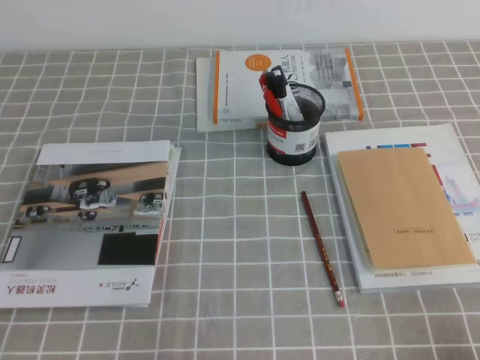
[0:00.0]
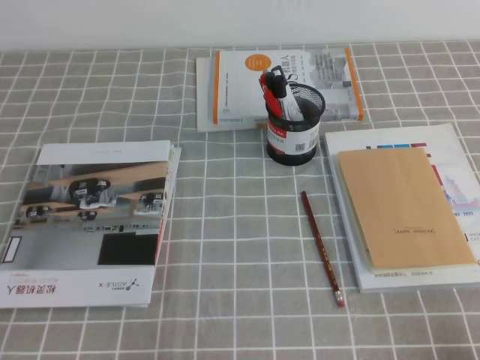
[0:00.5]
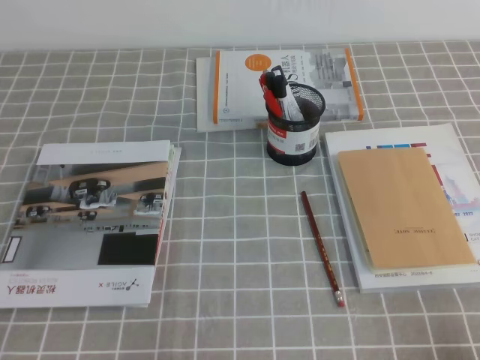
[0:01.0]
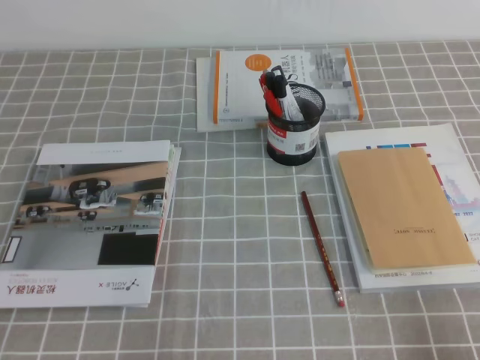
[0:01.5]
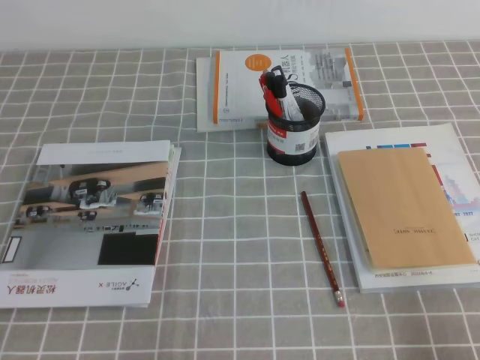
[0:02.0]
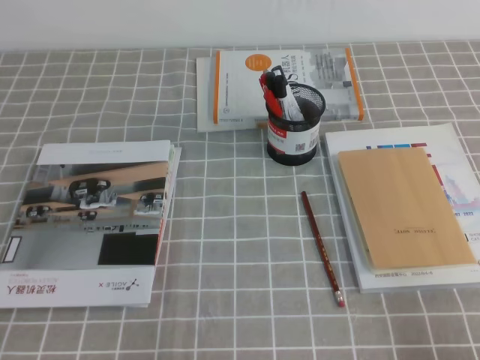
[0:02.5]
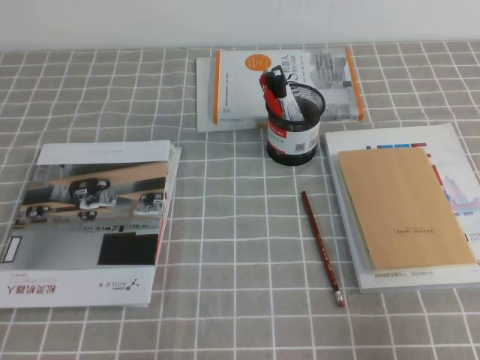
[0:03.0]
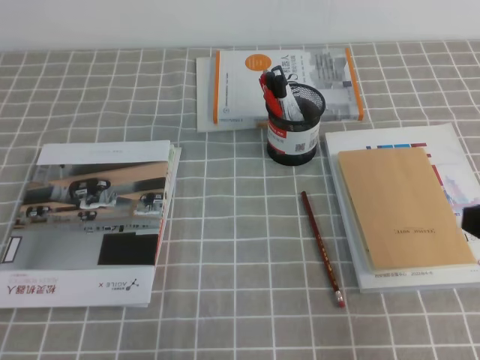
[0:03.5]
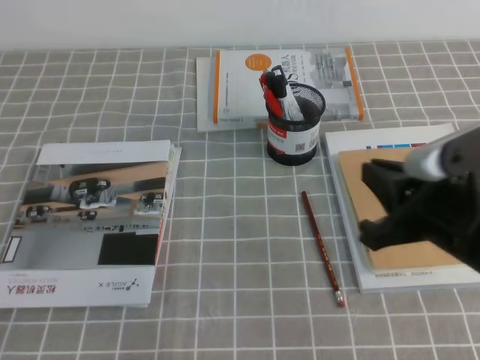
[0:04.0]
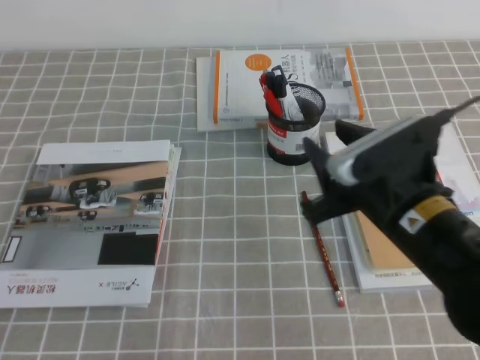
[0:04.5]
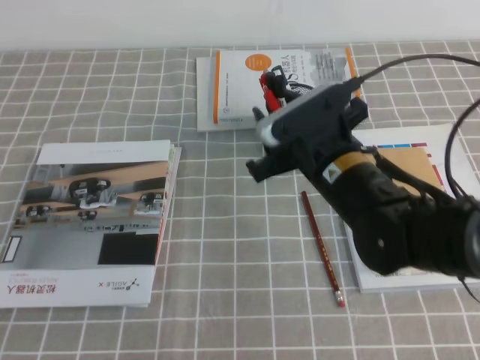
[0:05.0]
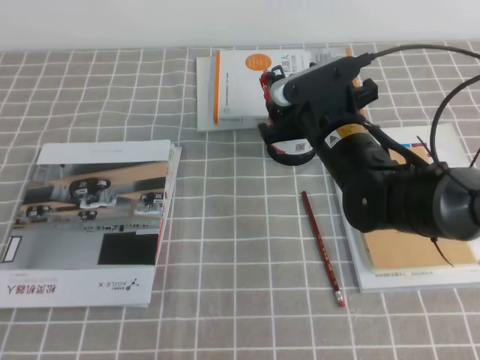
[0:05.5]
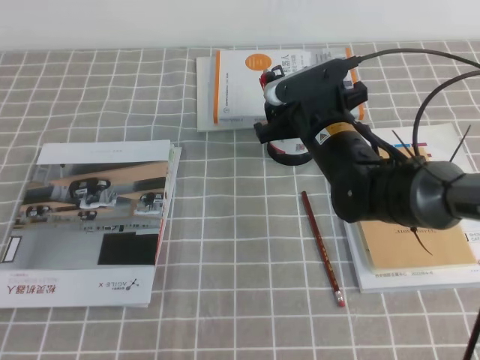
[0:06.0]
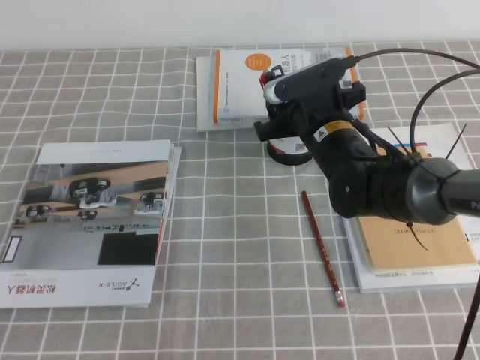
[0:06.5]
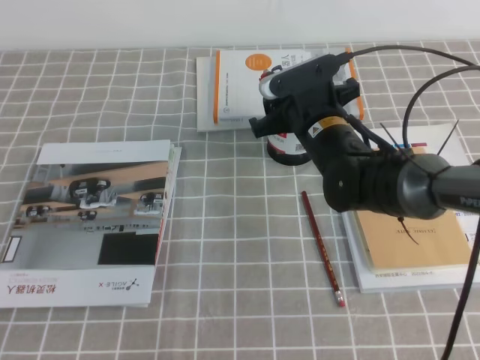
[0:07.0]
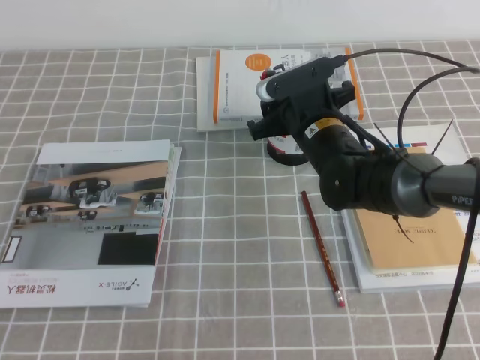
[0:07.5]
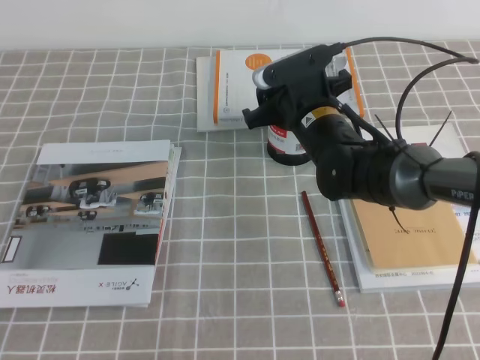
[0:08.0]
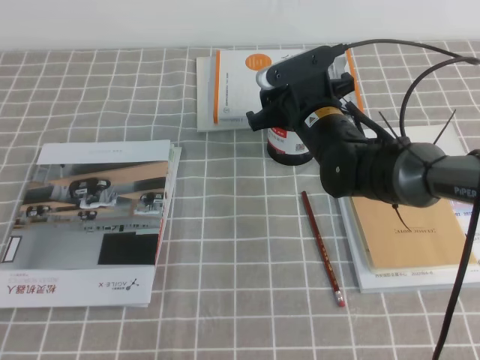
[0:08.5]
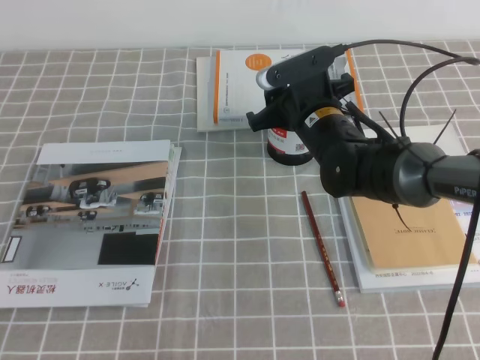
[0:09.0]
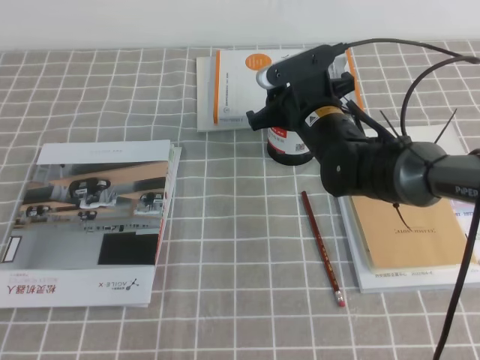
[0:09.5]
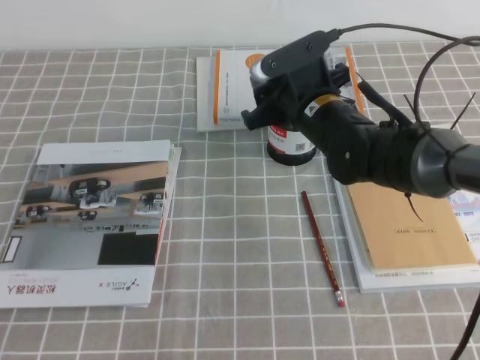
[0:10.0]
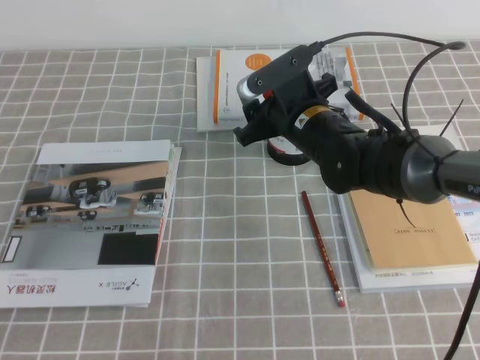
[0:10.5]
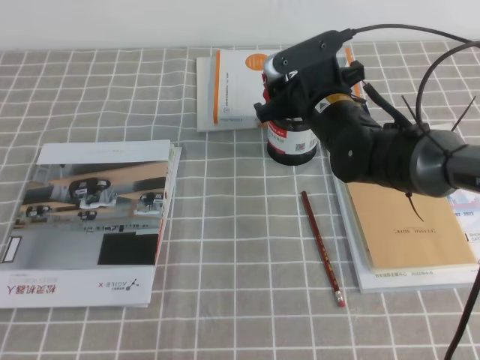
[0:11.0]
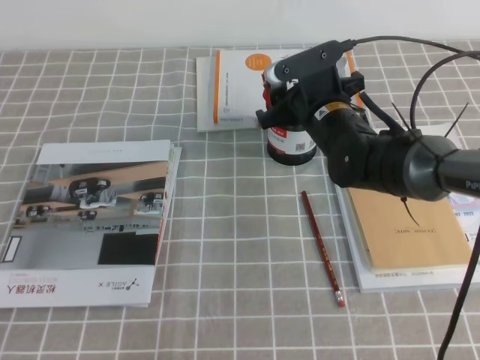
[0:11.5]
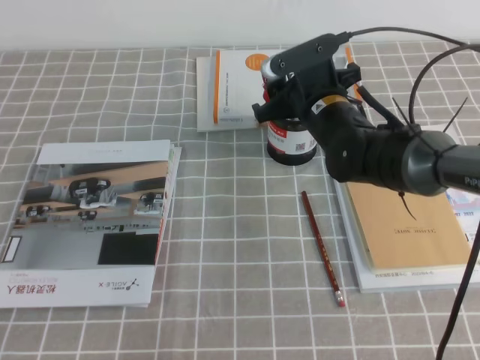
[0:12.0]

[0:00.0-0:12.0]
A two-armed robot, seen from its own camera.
0:02.0 to 0:04.0: The right gripper heads forward, to the left and upward, covering about 20 cm.
0:04.0 to 0:06.0: The right gripper is displaced forward and to the left by approximately 20 cm, and opens its fingers.
0:06.0 to 0:12.0: There are only small adjustments of the grippers.

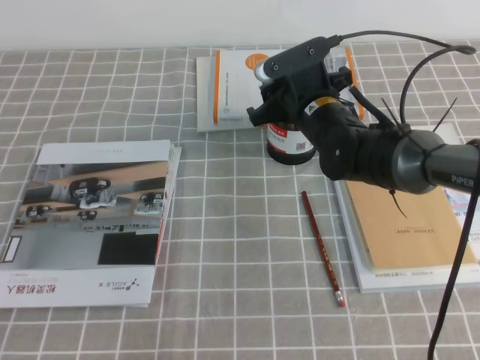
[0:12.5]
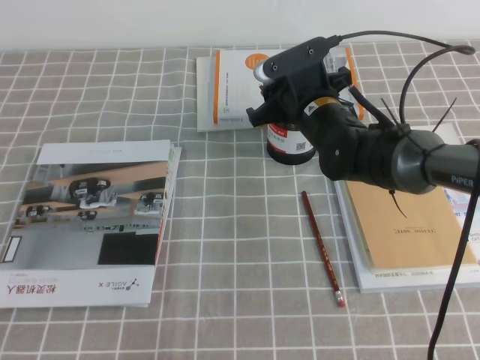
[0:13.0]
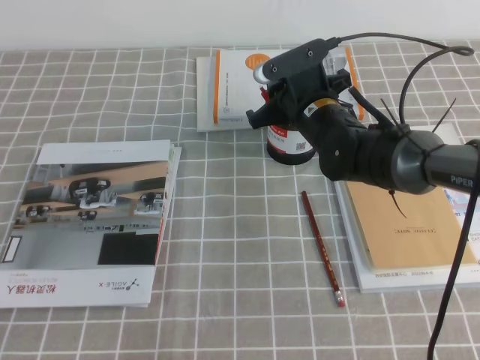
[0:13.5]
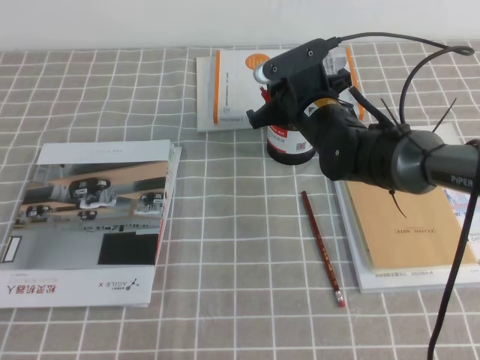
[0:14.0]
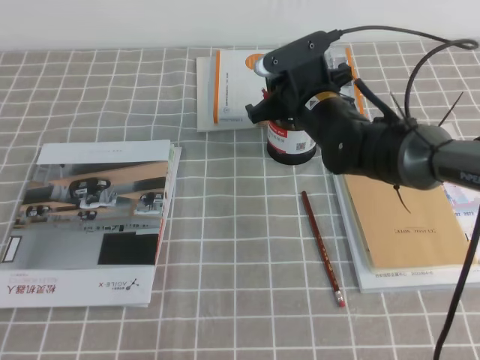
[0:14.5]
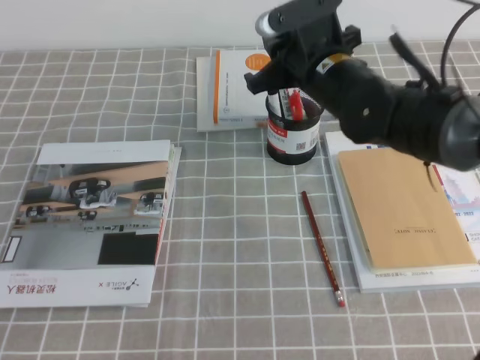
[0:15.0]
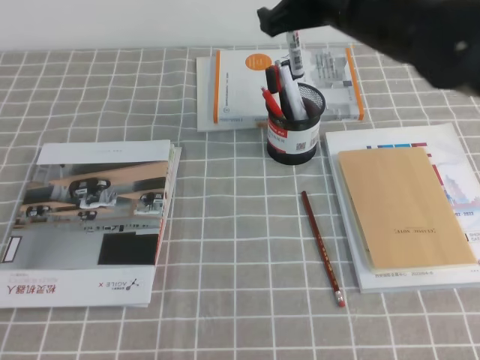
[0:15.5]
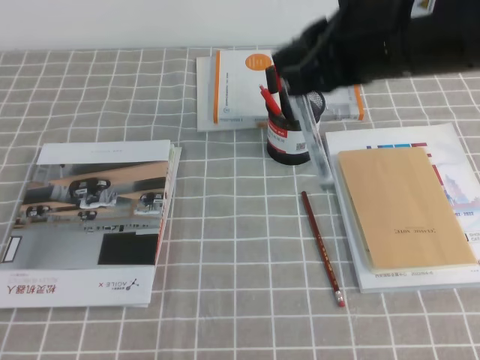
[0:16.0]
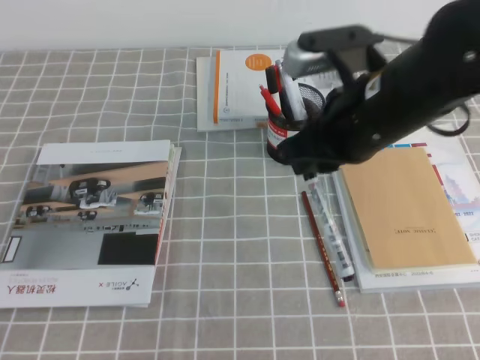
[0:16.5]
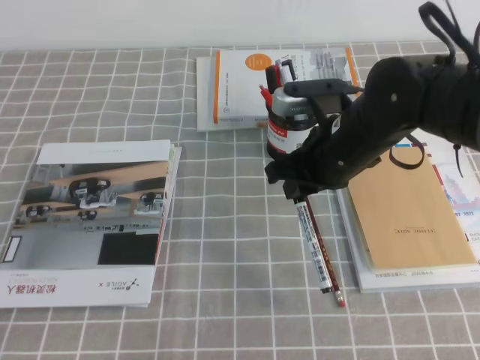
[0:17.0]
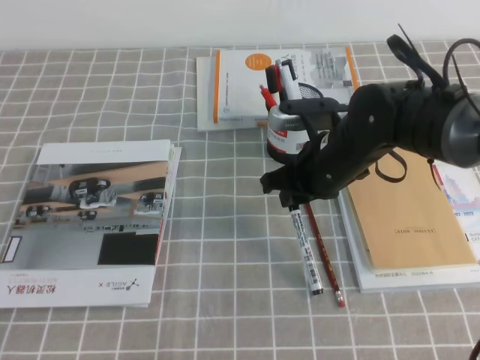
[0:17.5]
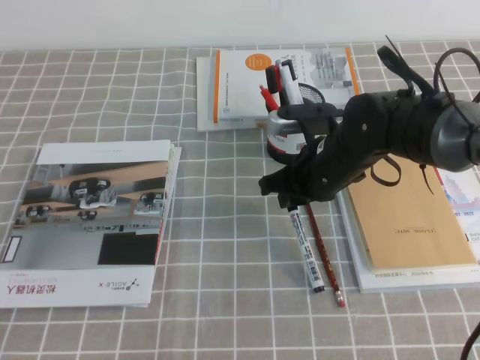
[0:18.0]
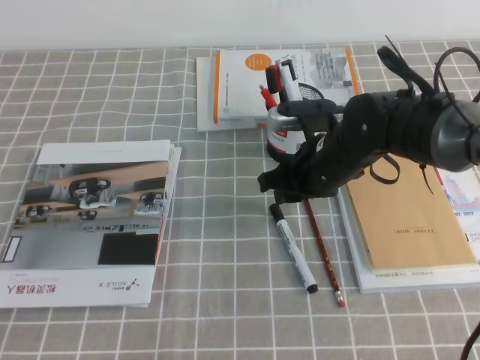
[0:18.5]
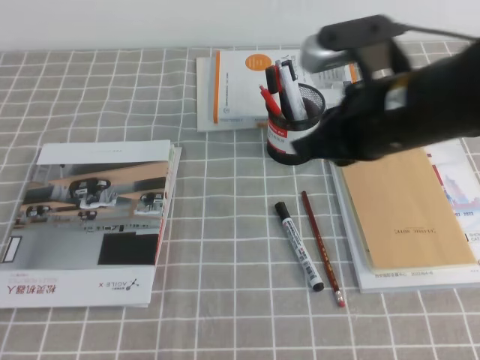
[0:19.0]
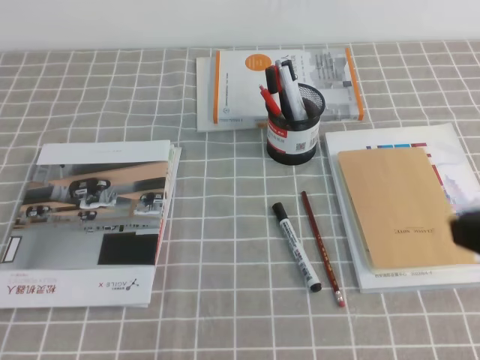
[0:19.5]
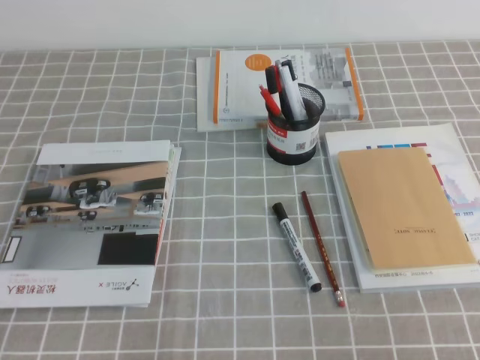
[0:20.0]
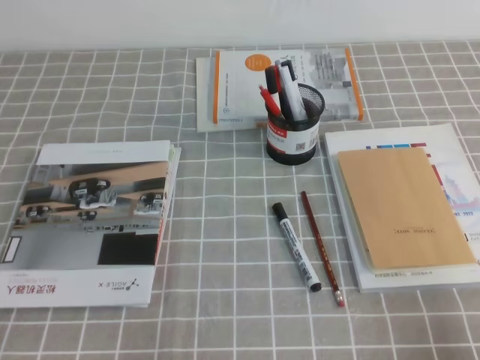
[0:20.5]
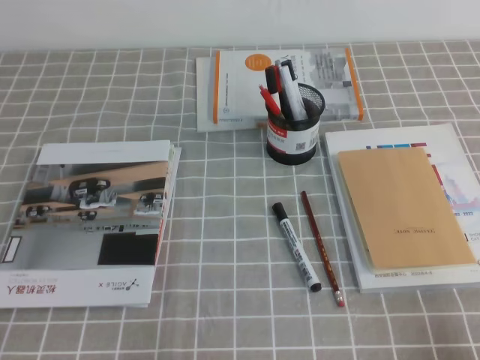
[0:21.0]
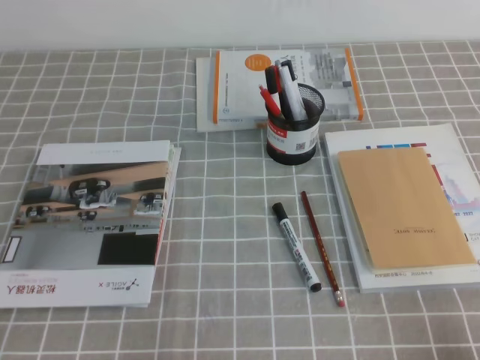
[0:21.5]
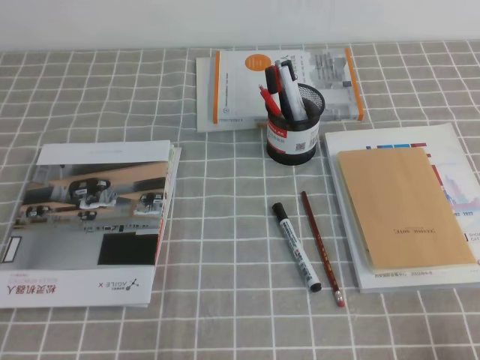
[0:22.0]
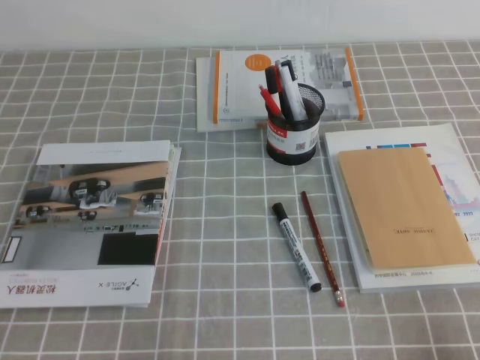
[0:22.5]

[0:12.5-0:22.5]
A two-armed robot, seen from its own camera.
Step, 0:12.5 to 0:22.5: Pick up the pen from the pen holder.
0:12.5 to 0:14.5: The right gripper closes.
0:14.5 to 0:16.5: The right gripper shifts some 15 cm backward and upward.
0:16.5 to 0:18.5: The right gripper shifts some 15 cm downward and forward.
0:18.5 to 0:20.5: The right gripper shifts some 35 cm backward and to the right, and closes.

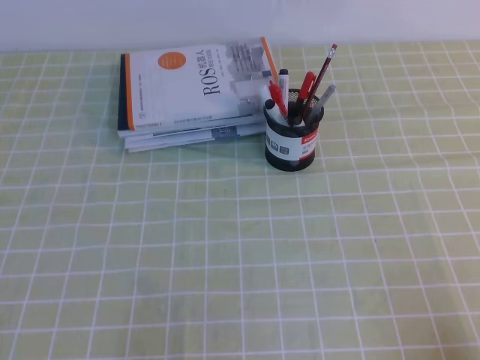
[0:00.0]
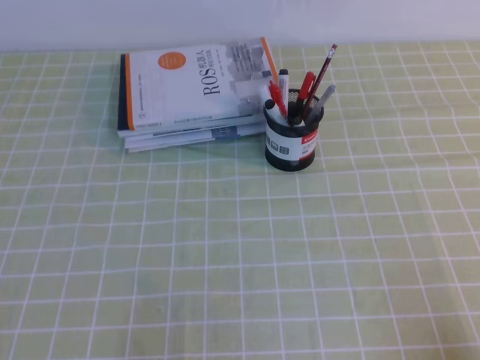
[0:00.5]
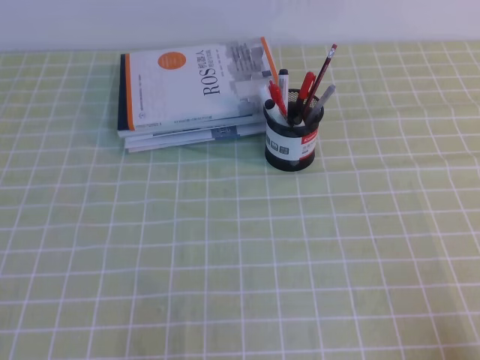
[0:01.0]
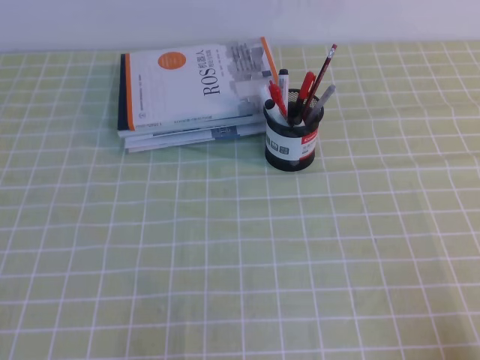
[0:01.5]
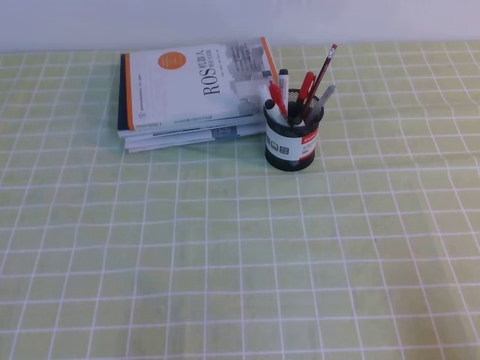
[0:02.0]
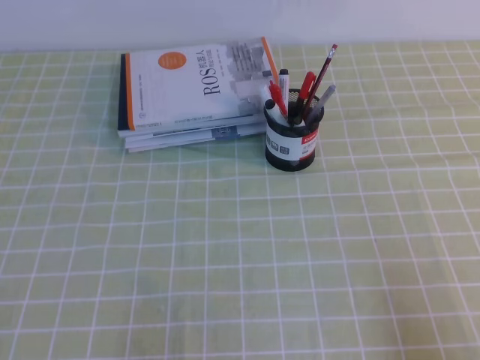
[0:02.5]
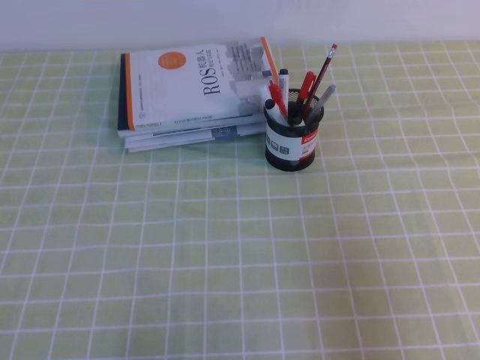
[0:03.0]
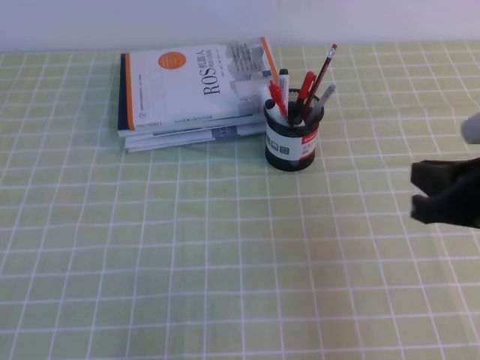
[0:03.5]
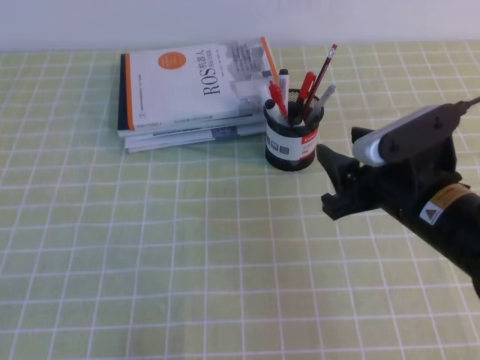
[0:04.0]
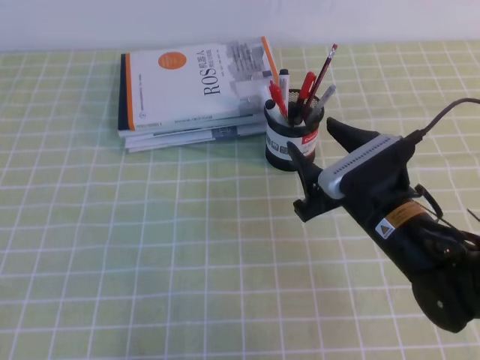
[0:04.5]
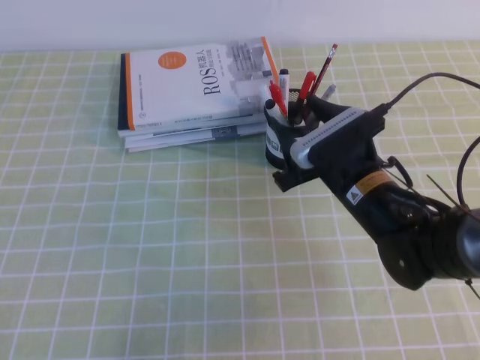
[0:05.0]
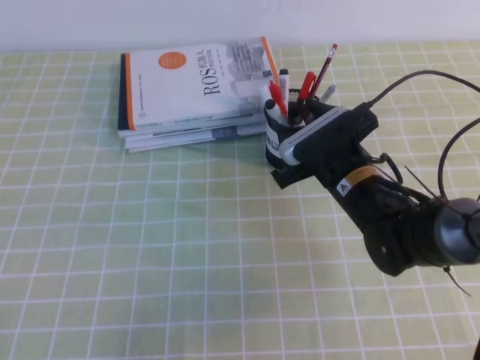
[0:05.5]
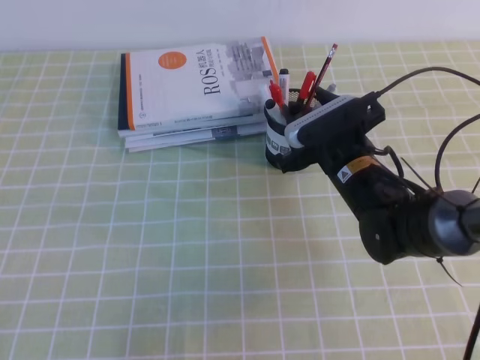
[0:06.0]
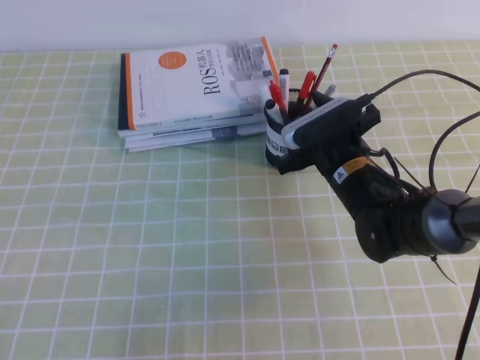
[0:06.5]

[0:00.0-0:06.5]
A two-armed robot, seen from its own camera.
0:02.0 to 0:04.5: The right gripper heads forward and to the left, covering some 30 cm, and opens its fingers.
0:04.5 to 0:06.5: The right gripper travels forward by approximately 10 cm.
